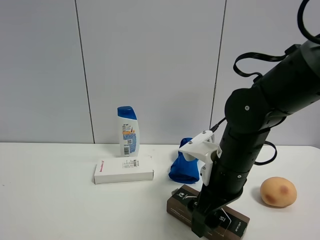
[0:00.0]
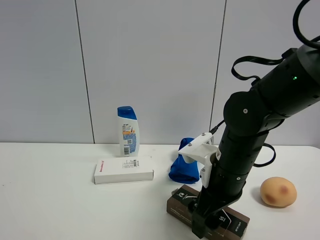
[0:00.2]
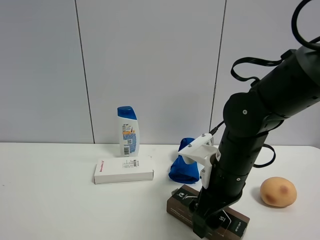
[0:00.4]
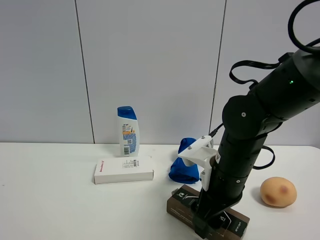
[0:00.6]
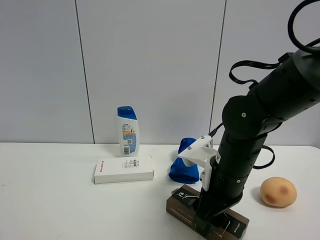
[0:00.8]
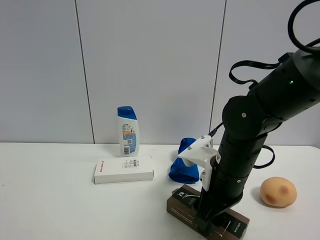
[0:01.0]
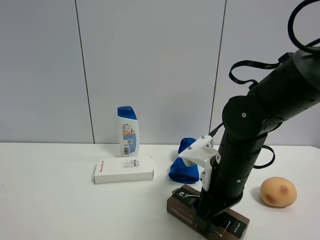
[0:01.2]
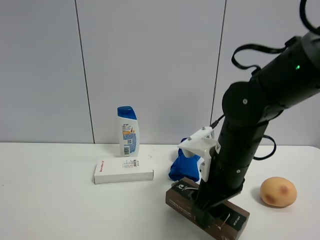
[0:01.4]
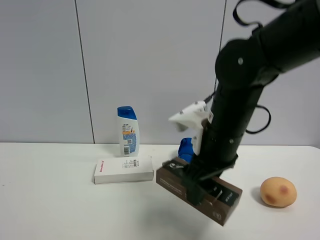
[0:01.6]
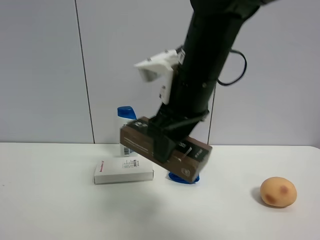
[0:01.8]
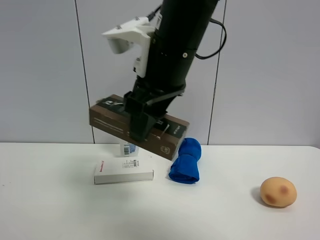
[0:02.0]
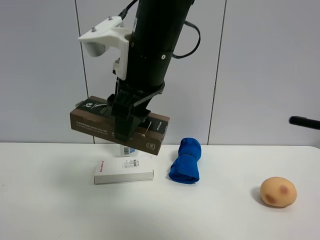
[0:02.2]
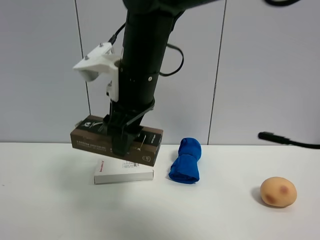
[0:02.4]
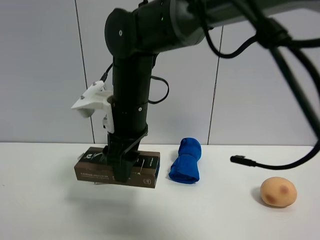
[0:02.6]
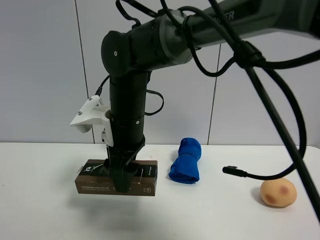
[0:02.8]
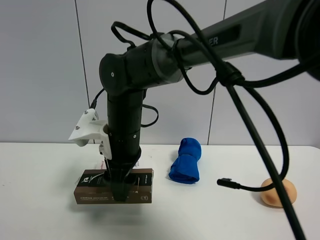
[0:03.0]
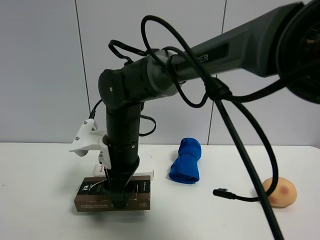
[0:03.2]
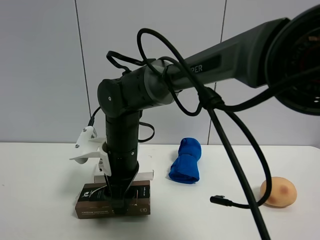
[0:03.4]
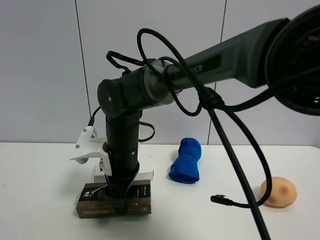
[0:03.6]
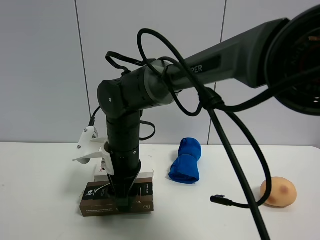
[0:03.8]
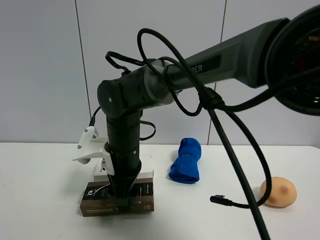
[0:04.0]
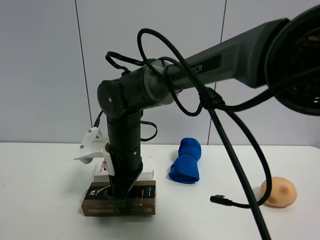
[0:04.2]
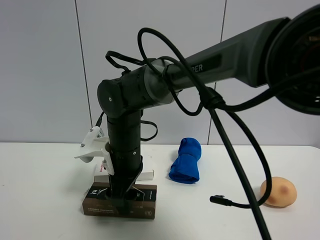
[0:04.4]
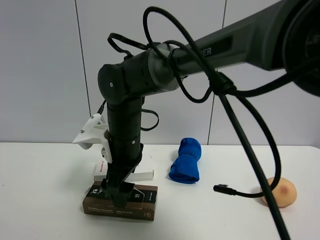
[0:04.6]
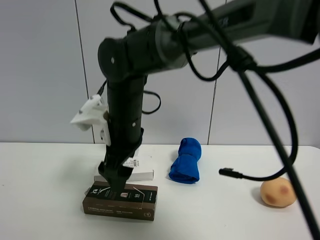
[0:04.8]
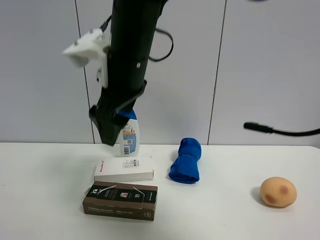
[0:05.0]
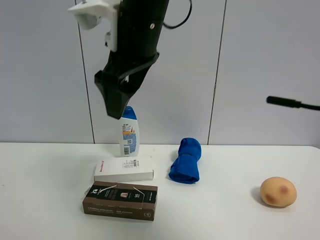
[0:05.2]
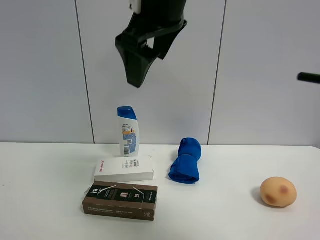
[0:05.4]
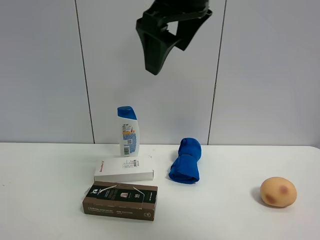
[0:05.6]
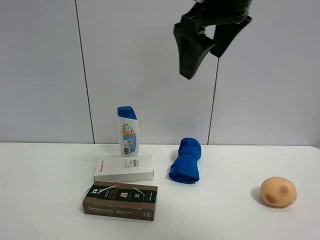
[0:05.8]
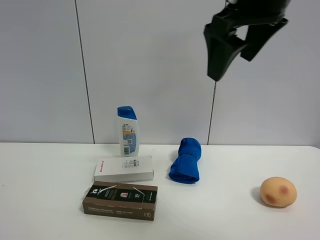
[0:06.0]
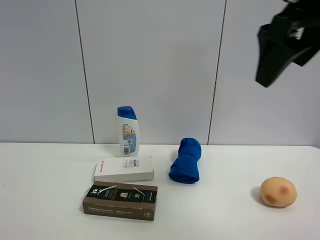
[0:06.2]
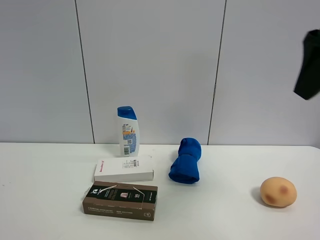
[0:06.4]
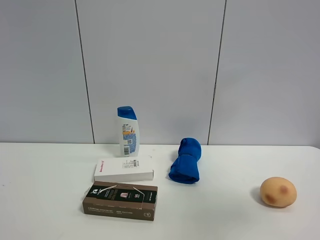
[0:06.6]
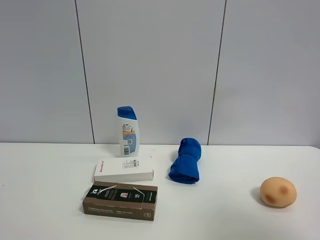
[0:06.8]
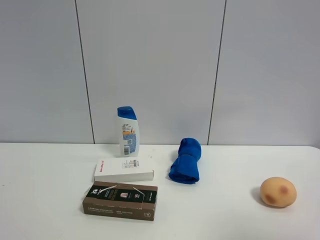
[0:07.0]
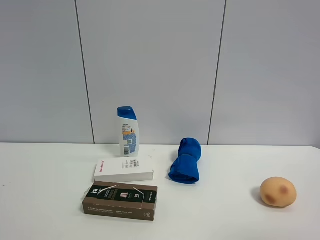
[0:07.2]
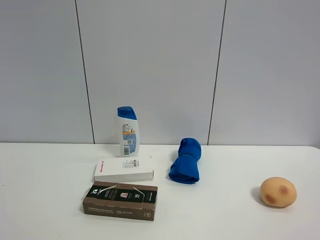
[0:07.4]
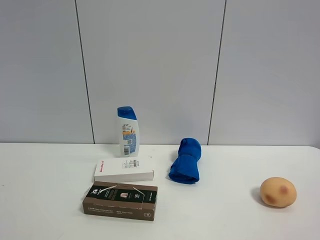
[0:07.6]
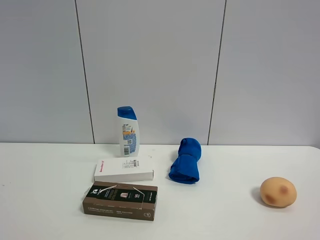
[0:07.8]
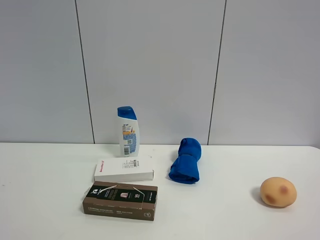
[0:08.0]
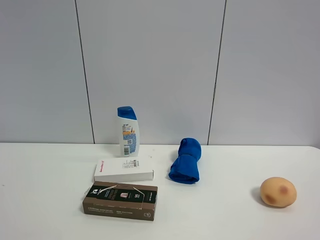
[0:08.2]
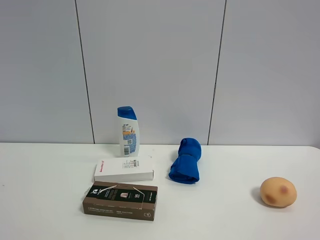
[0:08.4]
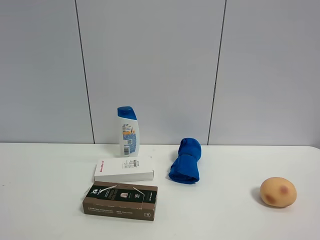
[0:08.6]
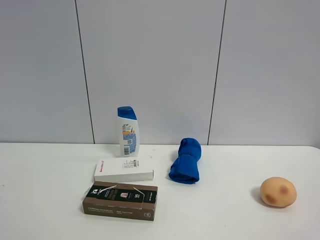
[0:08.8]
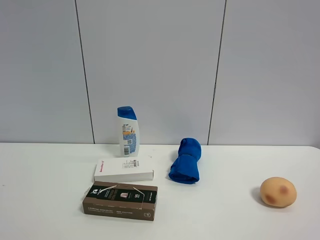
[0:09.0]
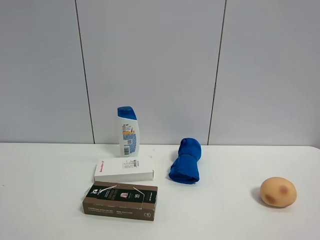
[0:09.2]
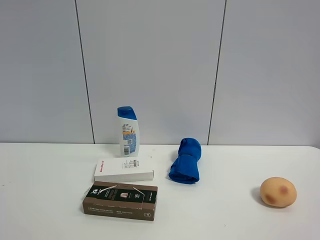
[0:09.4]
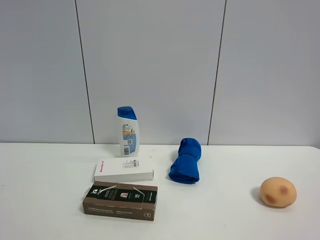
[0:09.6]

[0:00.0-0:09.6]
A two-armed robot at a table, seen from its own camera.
Task of the whole recording: the gripper move the object.
Step, 1.0 to 4.4 s: Place the brown box on the table with the right gripper.
0.0 to 1.6 s: The right gripper closes.
1.6 to 3.2 s: The right gripper travels to the left by roughly 15 cm.
3.2 to 4.8 s: The right gripper opens its fingers.
4.8 to 6.4 s: The right gripper heads to the right and upward, covering about 35 cm.
6.4 to 8.0 s: The right gripper goes roughly 30 cm backward, downward and to the right.
8.0 to 9.6 s: Neither gripper changes place.

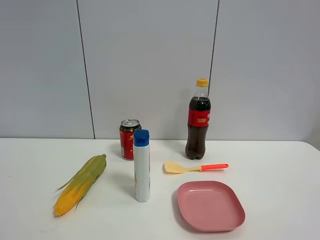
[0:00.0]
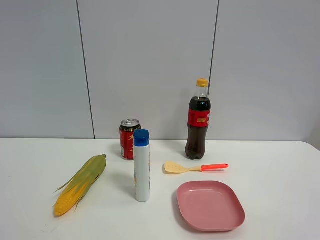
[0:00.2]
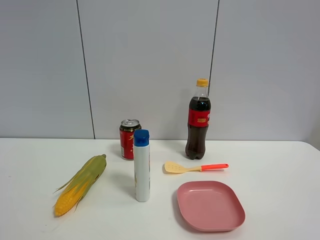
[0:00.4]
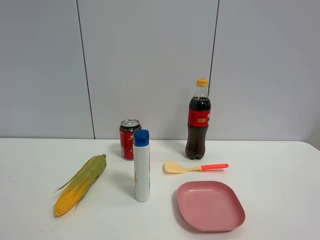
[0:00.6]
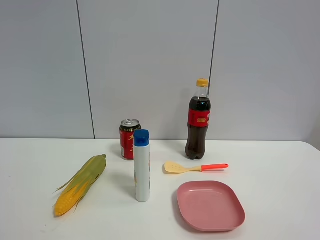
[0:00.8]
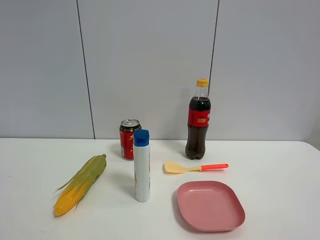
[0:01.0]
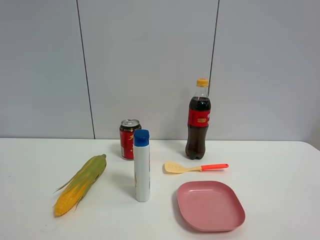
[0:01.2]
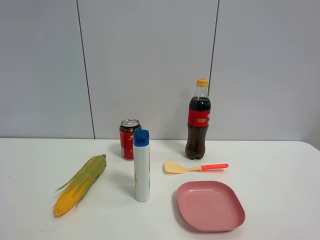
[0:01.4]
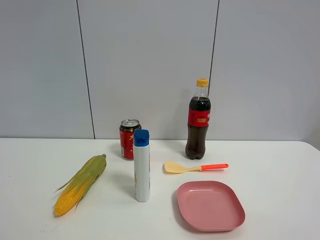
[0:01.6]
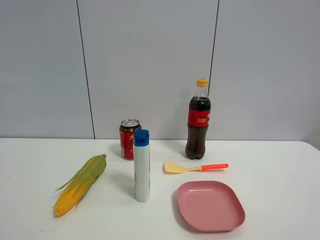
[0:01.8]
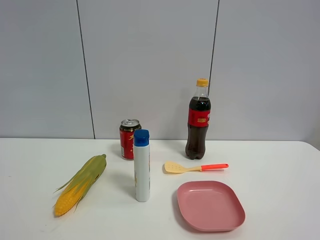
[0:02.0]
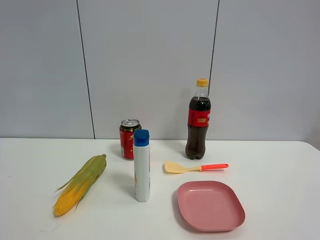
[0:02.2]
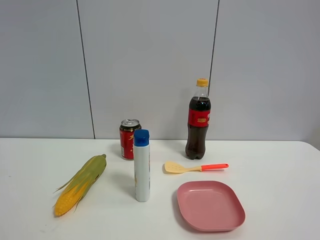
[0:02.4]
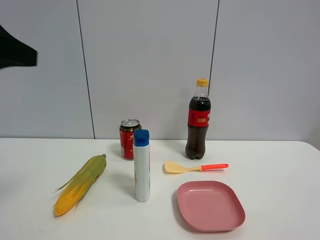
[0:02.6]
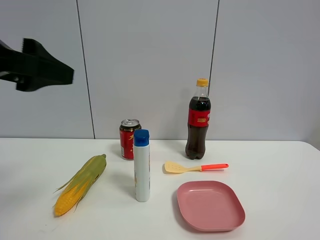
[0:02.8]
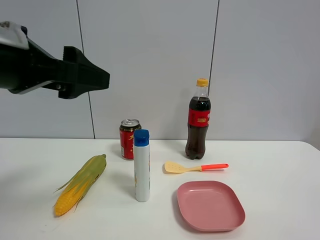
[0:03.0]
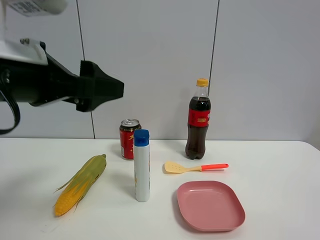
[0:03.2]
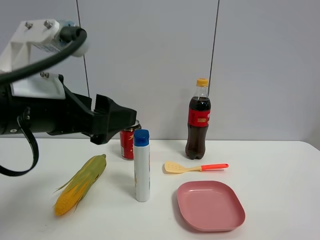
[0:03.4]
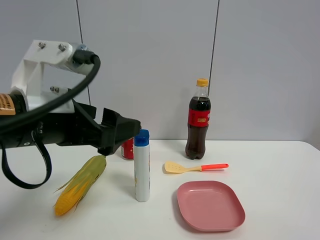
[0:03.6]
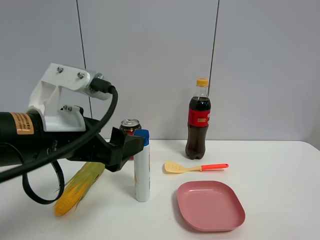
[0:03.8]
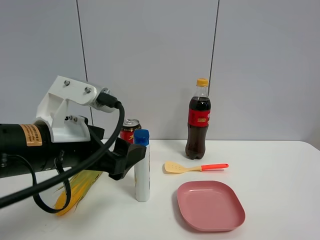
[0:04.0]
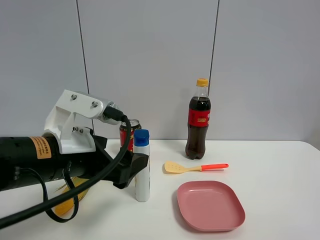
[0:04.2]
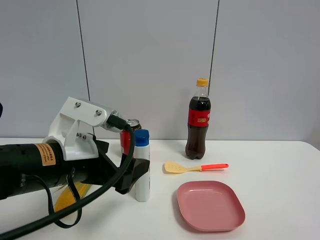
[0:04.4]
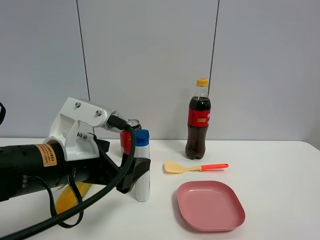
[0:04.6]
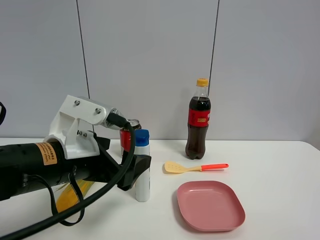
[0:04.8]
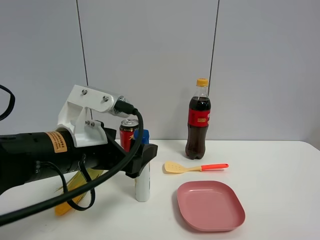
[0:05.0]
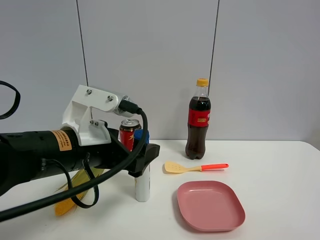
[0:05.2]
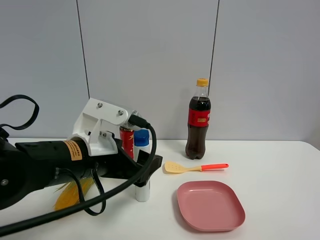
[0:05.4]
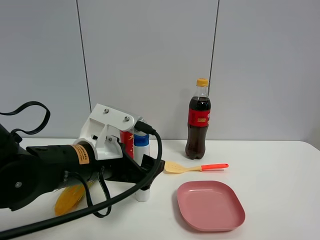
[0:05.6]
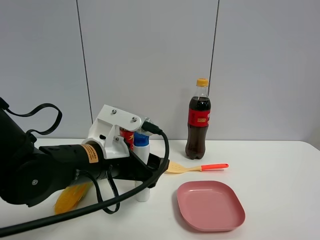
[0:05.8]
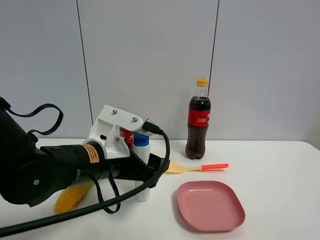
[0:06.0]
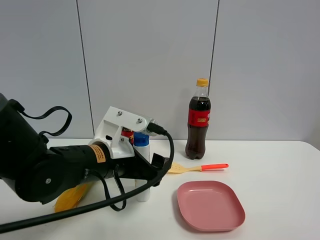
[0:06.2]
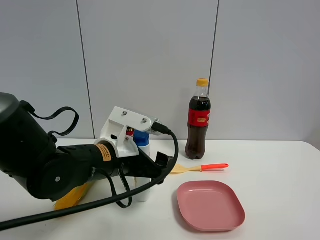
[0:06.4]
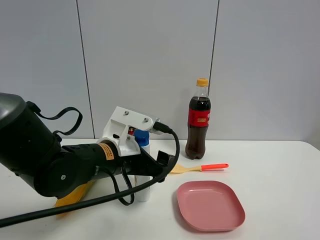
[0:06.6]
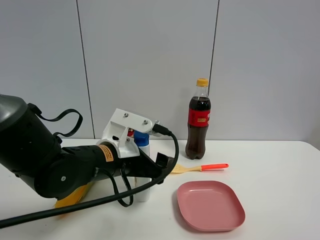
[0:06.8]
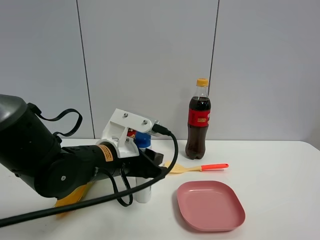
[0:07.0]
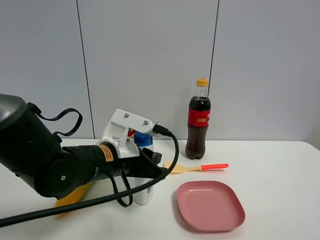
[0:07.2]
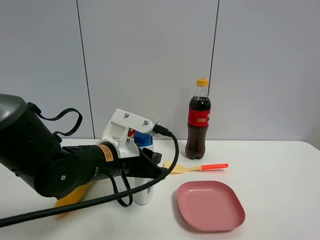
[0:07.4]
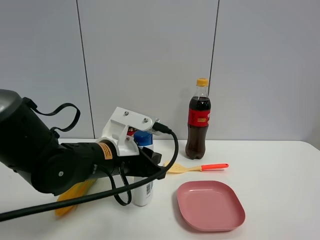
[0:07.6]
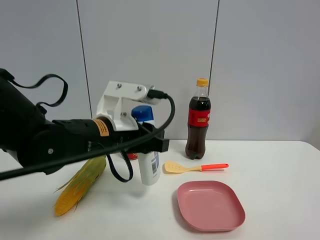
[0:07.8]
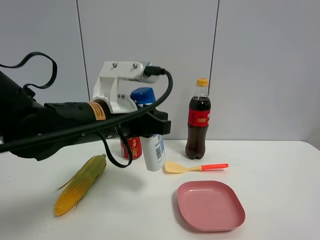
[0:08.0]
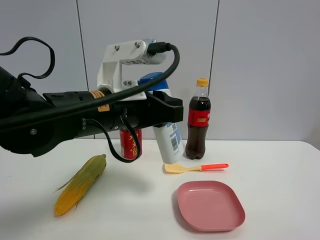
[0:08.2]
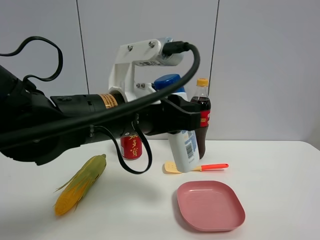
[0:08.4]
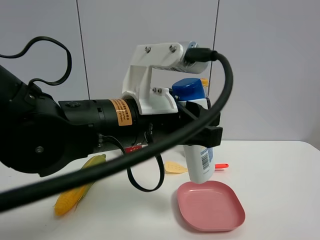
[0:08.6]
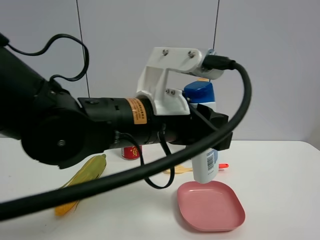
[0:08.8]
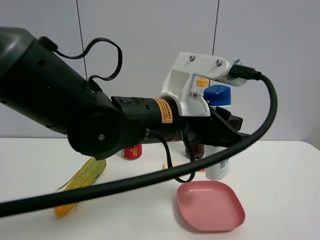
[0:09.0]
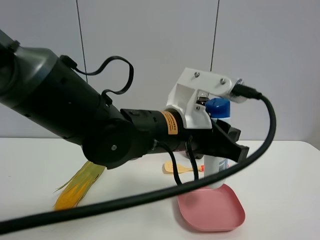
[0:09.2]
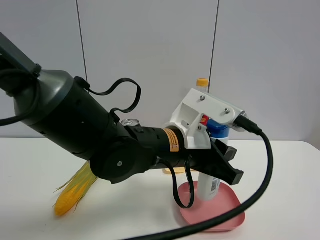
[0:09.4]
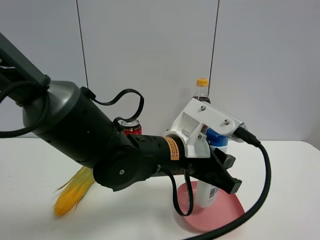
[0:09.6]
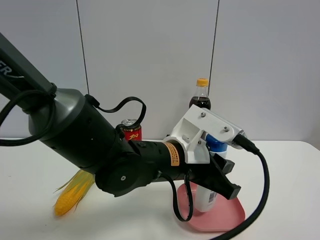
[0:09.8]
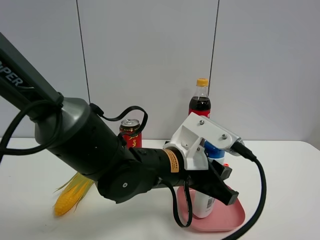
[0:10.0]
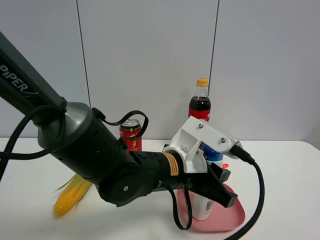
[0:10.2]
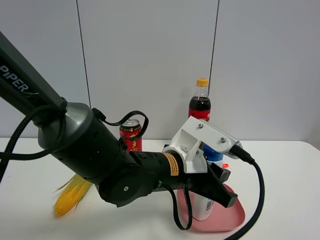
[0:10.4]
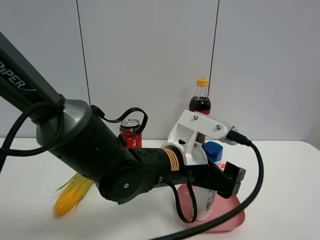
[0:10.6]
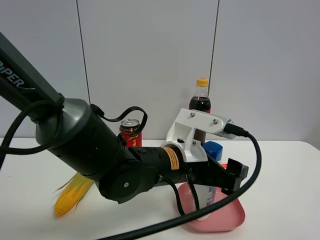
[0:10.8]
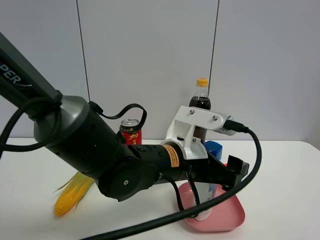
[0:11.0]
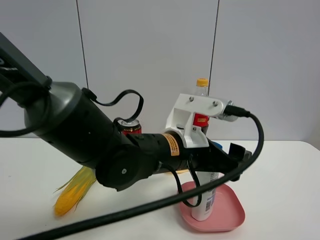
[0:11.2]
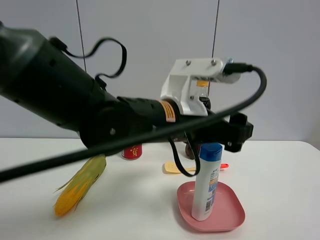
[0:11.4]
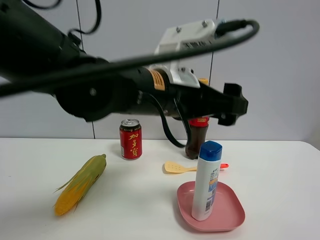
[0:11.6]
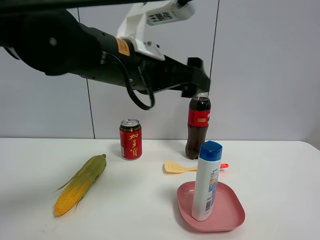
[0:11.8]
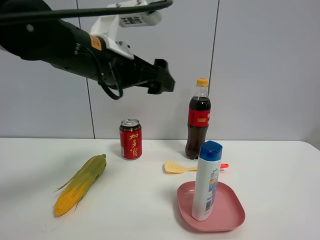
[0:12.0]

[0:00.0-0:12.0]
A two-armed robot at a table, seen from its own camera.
Task of the whole recording: the gripper move the object.
Step, 0.0 to 7.2 s: Grasp the shampoo with the left gripper.
Step, 7.4 to 11.0 s: Place the shampoo into the pink plate with the left gripper.
1.6 to 3.0 s: The left gripper goes about 20 cm forward and to the right.
3.0 to 4.4 s: The left gripper shifts approximately 15 cm downward.
4.4 to 6.0 s: The left gripper moves about 5 cm.
6.0 to 7.6 s: The left gripper closes up.
7.6 to 9.0 s: The left gripper is displaced to the right and upward by roughly 15 cm.
9.0 to 10.4 s: The left gripper heads downward, covering some 10 cm.
10.4 to 12.0 s: The left gripper moves upward and to the left, approximately 20 cm, and opens.

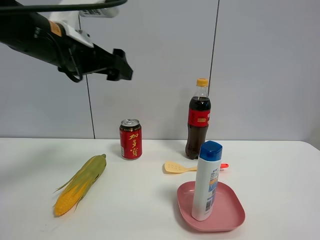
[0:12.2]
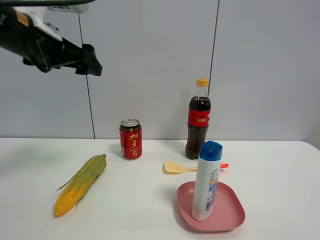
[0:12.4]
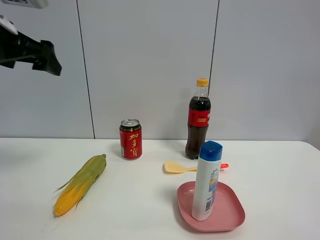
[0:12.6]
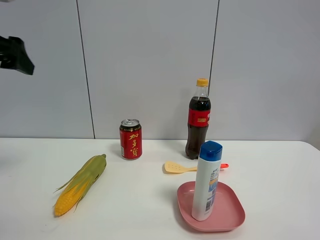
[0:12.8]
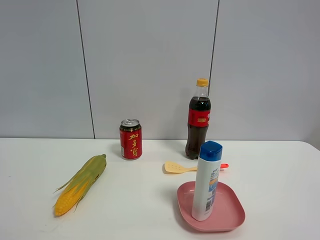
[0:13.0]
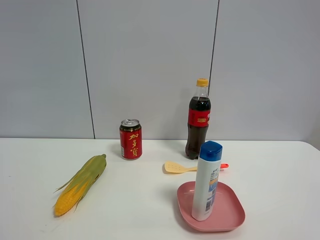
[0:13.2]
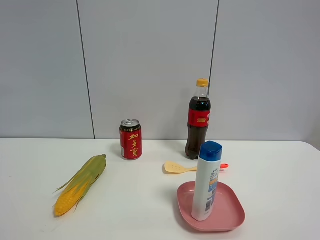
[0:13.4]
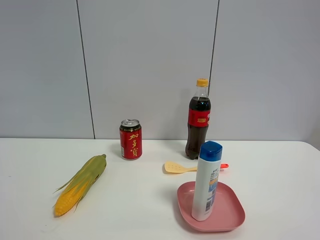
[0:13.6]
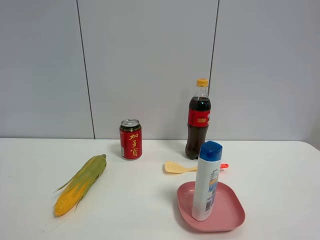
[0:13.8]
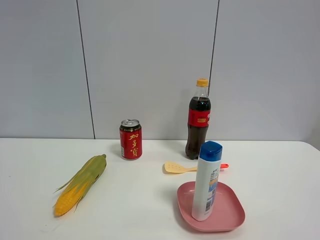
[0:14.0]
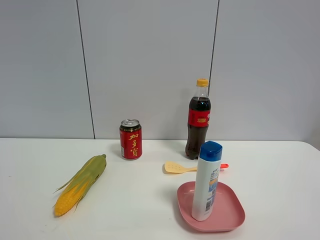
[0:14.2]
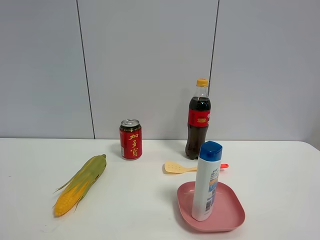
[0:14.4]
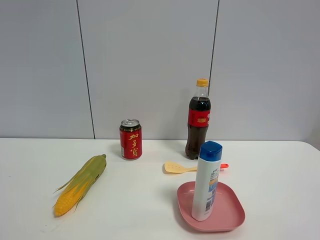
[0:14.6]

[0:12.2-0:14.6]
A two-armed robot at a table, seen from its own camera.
Task of the whole recording: the gripper move the object.
12.2 to 13.4 s: The left gripper shifts approximately 30 cm backward and to the left.
